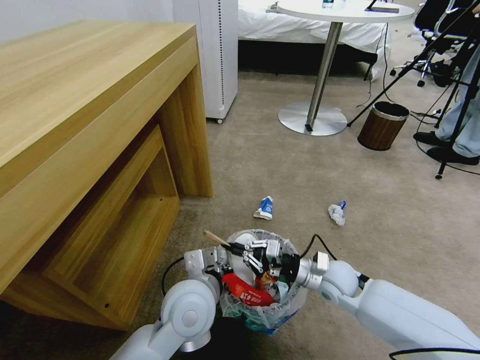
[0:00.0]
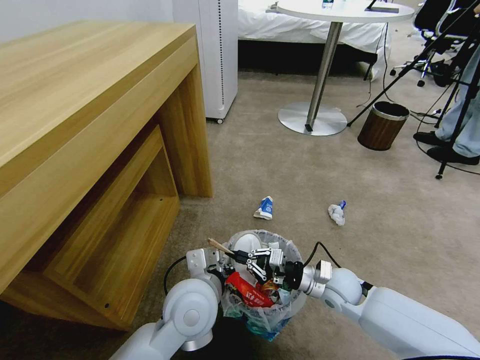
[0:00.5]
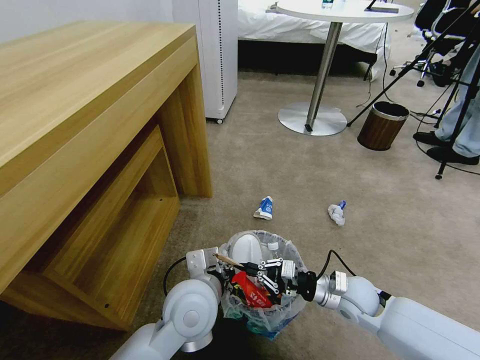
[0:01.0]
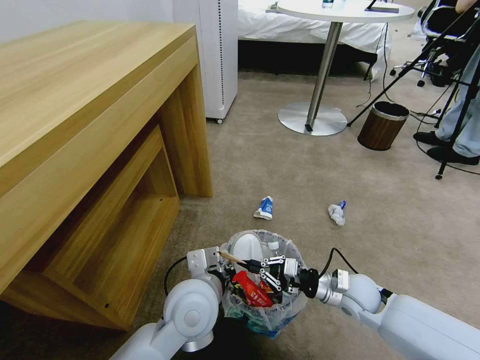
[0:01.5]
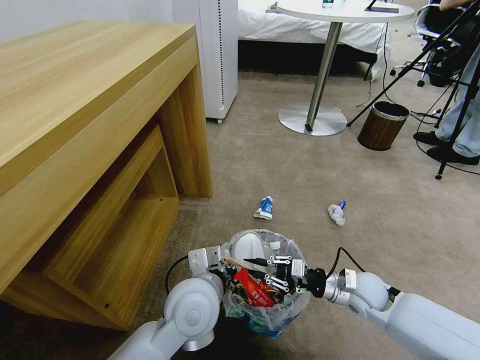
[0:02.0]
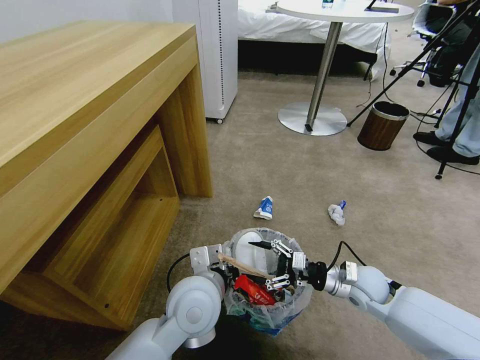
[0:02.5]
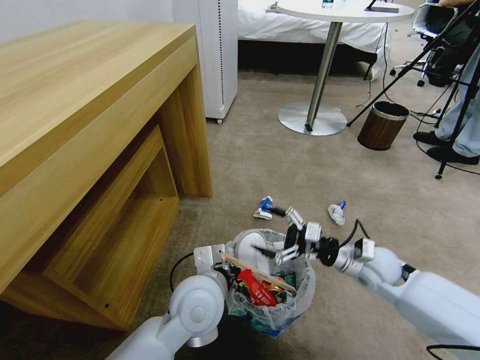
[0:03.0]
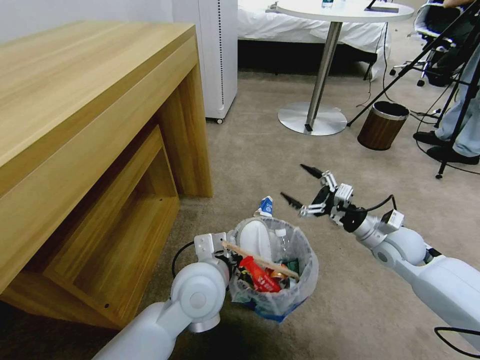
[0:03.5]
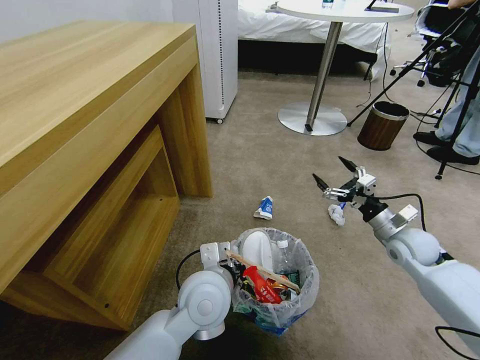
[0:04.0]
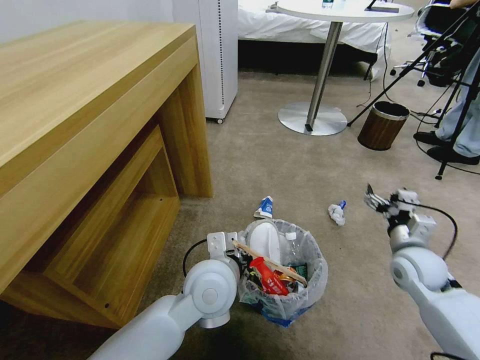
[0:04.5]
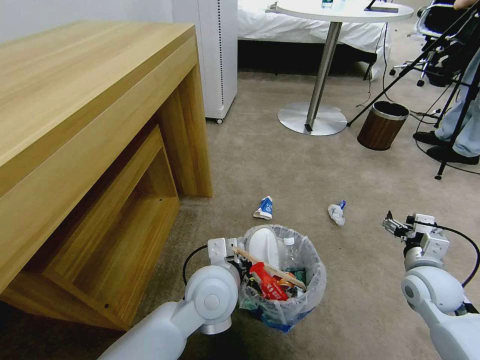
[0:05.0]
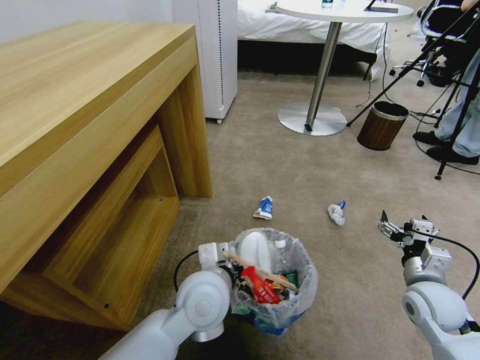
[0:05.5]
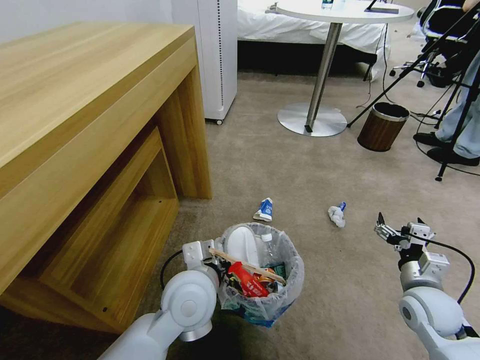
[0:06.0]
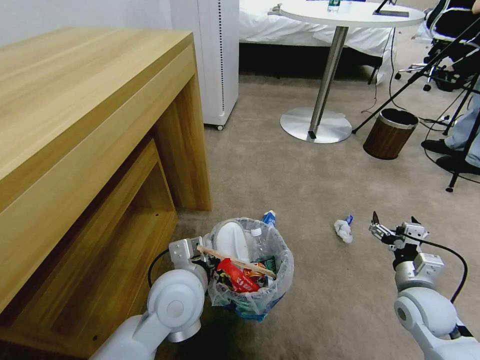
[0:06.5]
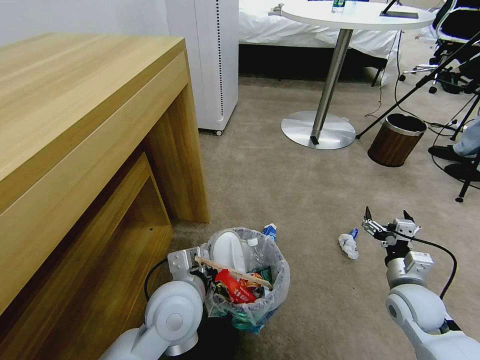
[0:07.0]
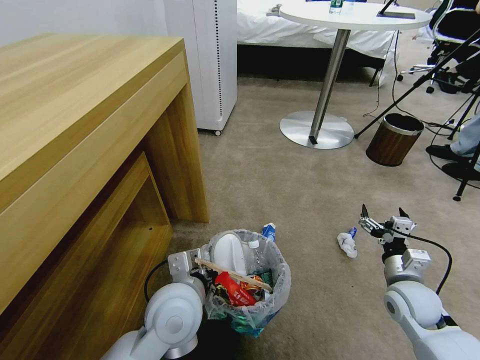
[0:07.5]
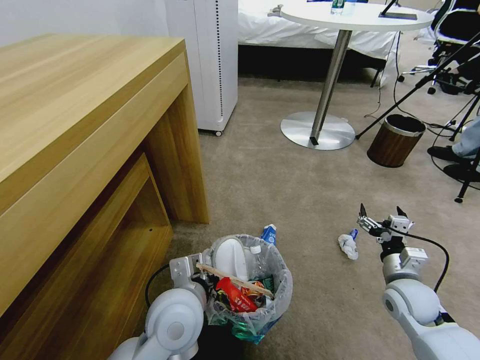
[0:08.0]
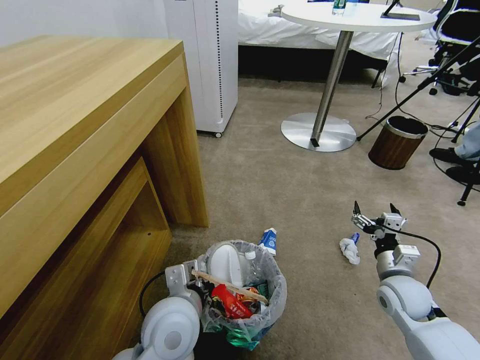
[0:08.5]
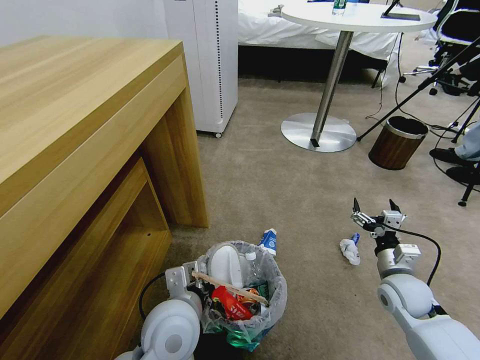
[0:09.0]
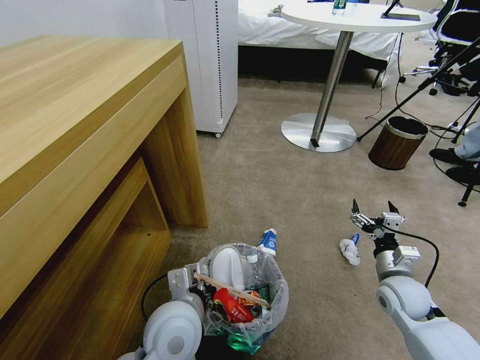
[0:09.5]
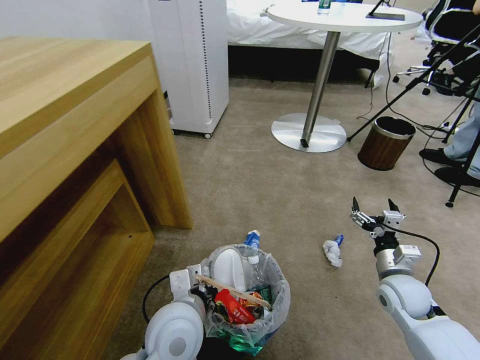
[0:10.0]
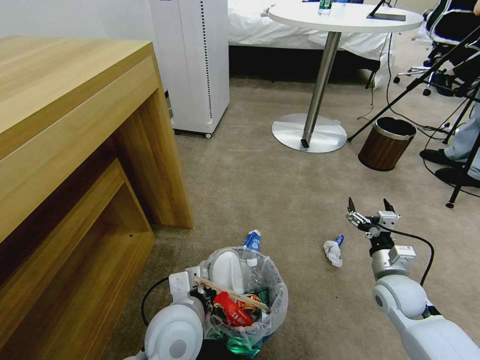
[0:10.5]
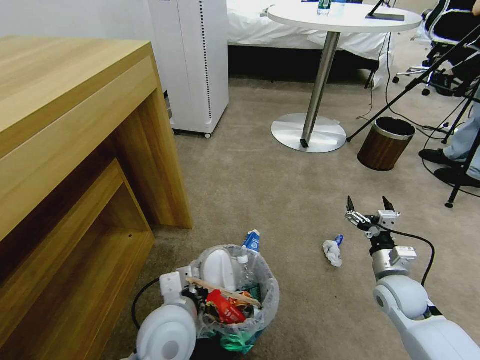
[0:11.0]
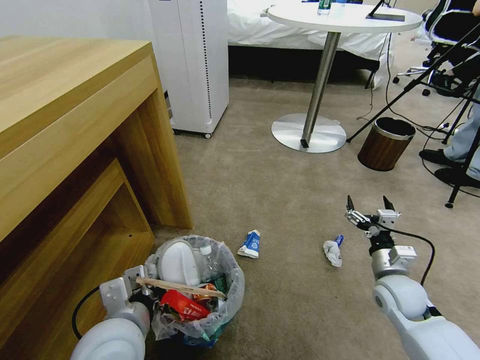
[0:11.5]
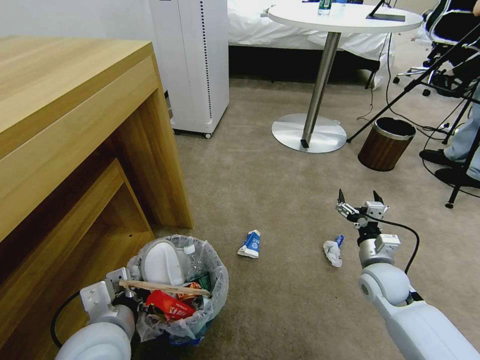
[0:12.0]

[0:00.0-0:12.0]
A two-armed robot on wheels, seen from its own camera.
Task of the whole recording: Pick up the trash bin and place the garbage on the floor into it.
0:00.0 to 0:02.0: The right gripper shifts approximately 5 cm to the right.
0:02.0 to 0:04.0: The right gripper heads to the right, upward and forward, covering approximately 15 cm, and opens up.
0:04.0 to 0:06.0: The right gripper heads backward, covering some 10 cm.
0:10.0 to 0:12.0: The left gripper shifts approximately 10 cm to the left.

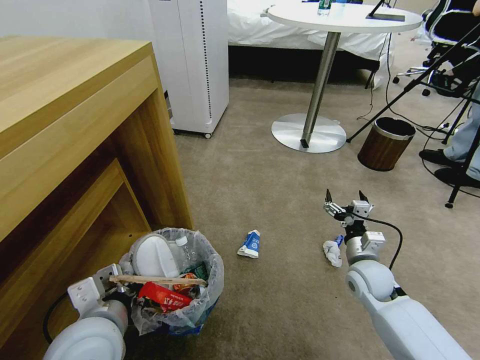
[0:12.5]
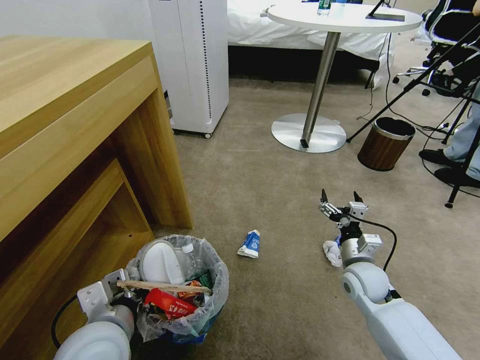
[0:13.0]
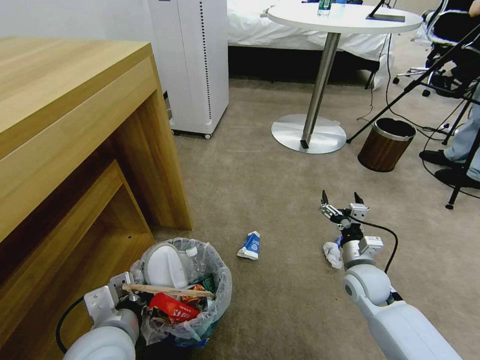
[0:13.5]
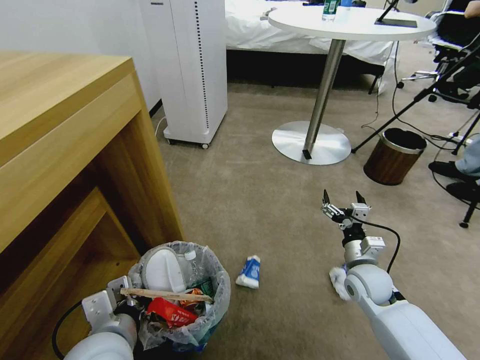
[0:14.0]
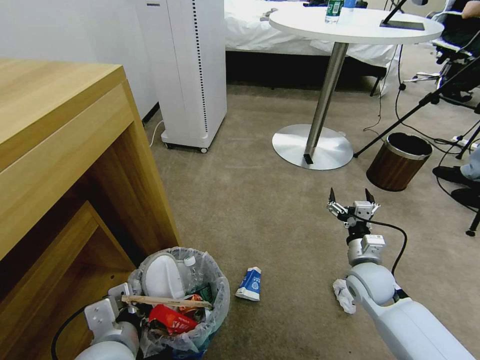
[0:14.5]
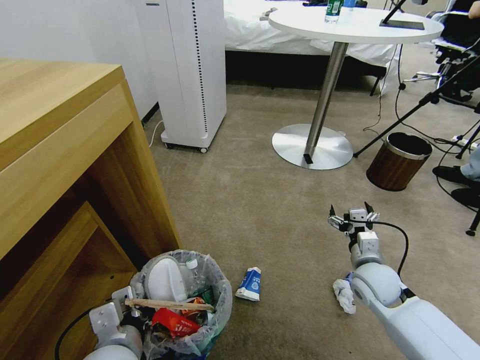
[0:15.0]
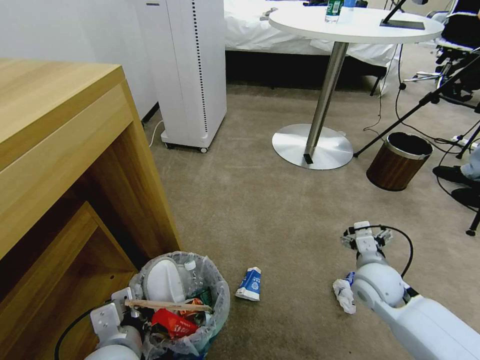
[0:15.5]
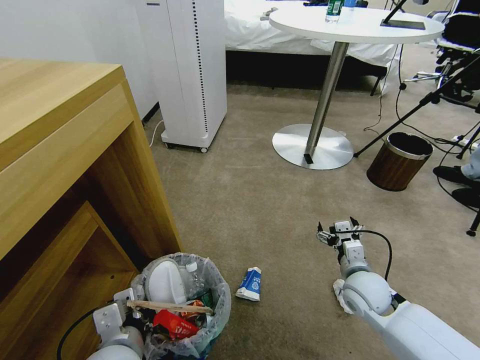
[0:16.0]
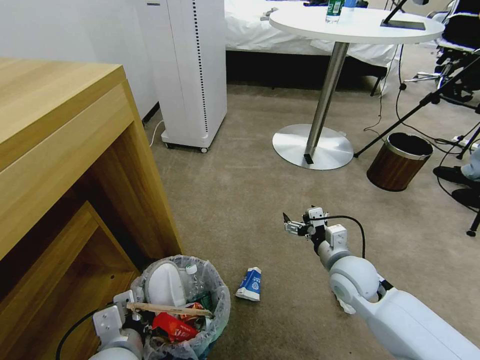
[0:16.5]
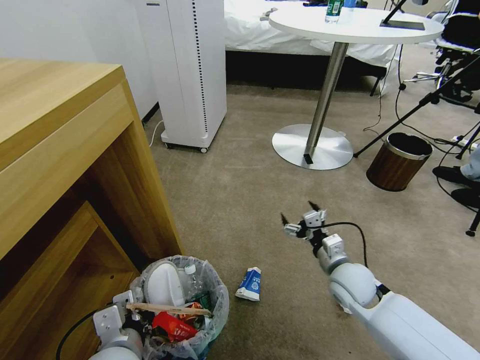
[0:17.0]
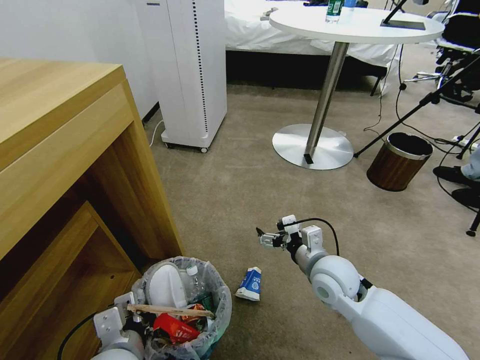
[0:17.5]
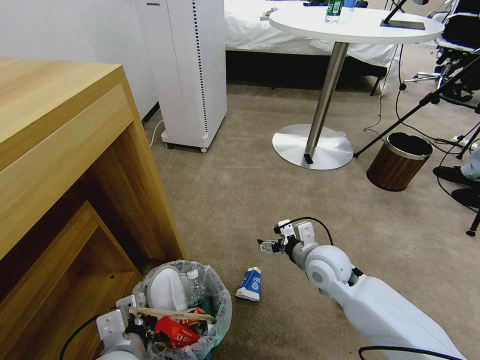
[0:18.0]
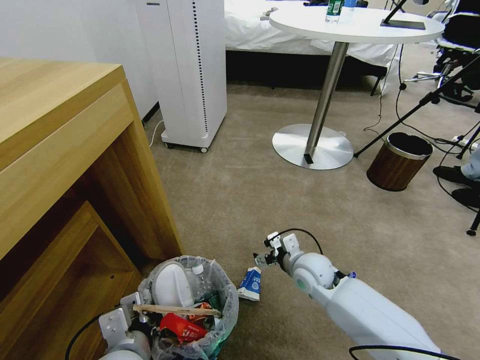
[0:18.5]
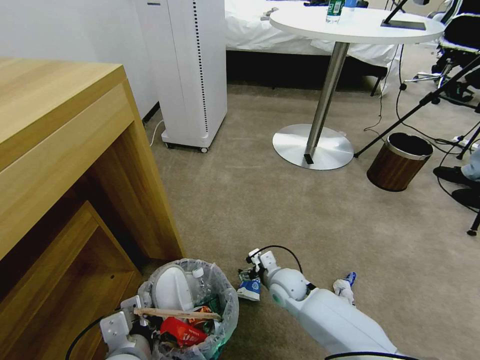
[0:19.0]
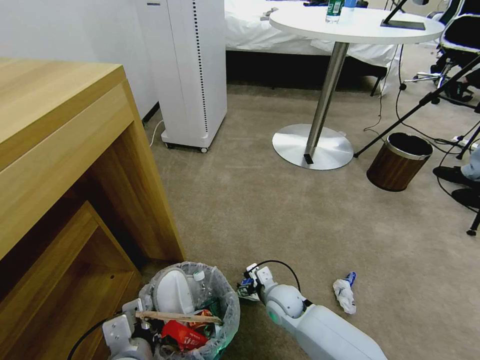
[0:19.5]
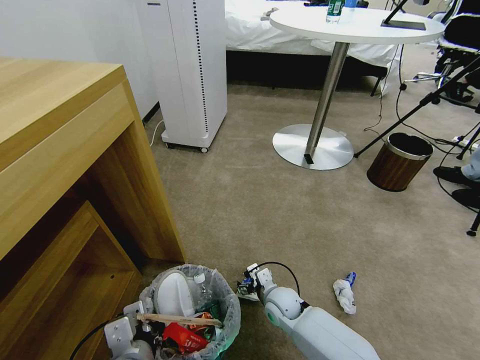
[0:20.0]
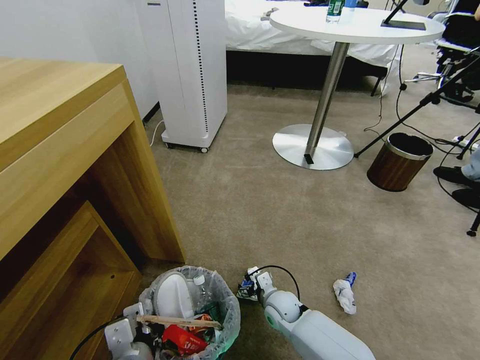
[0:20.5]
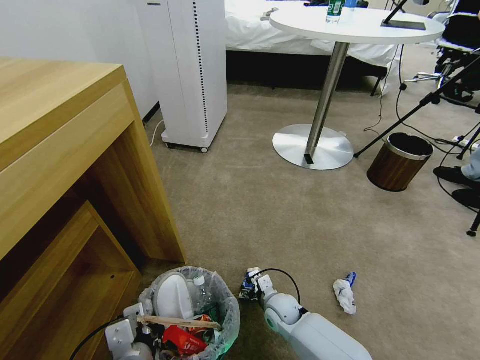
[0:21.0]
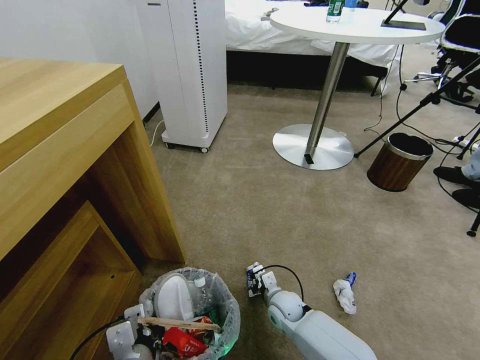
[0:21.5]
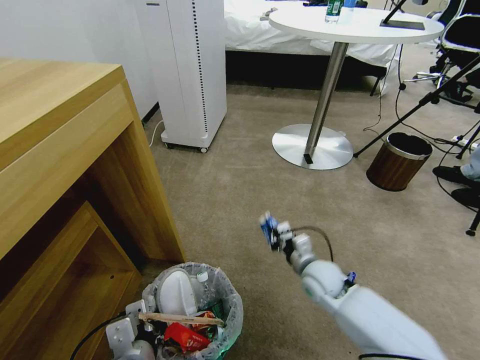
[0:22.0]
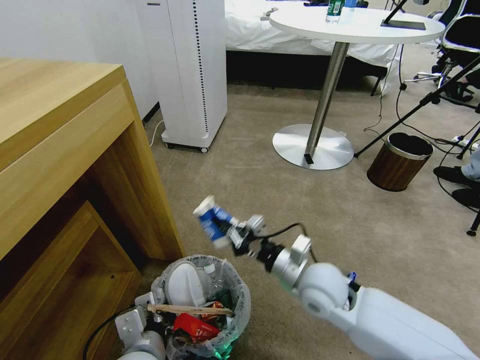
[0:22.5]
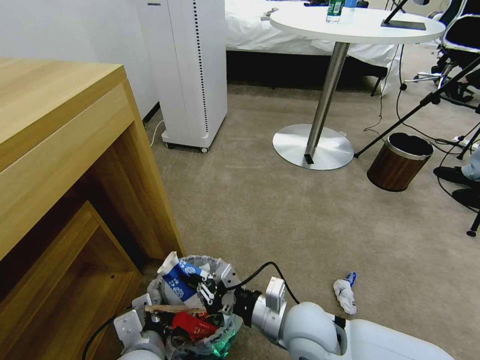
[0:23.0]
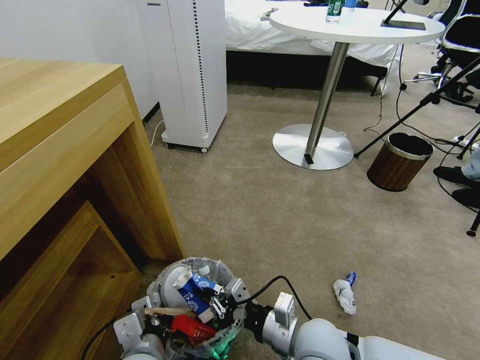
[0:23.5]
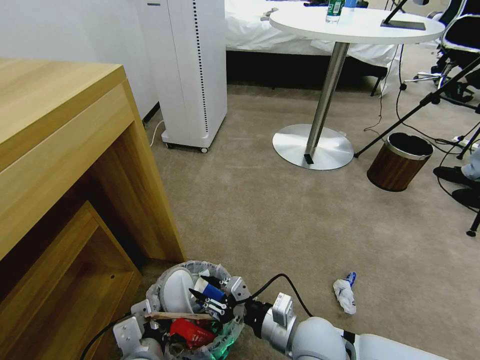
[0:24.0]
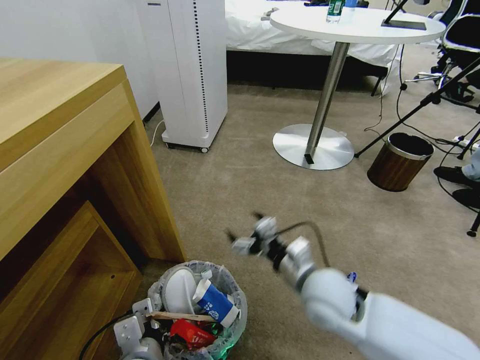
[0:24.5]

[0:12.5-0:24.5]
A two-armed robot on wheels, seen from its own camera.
Task of the whole recording: Pick up the trash bin and place the garbage on the floor into it.
0:14.5 to 0:16.5: The right gripper moves to the left, some 5 cm.
0:16.5 to 0:18.5: The right gripper travels to the left by about 5 cm.
0:18.5 to 0:20.5: The right gripper heads downward and to the left, covering approximately 15 cm.
0:20.5 to 0:22.5: The right gripper shifts about 20 cm upward, and closes up.
0:22.5 to 0:24.5: The right gripper reaches roughly 10 cm backward, then returns, and opens its fingers.

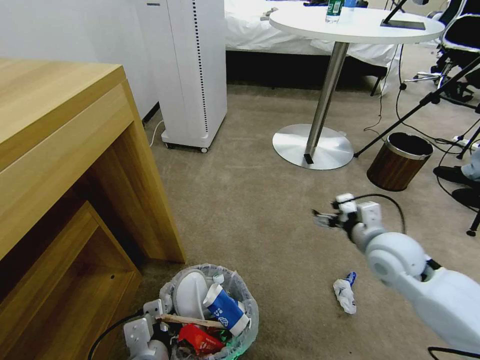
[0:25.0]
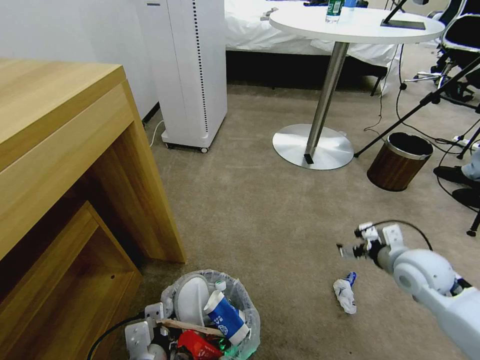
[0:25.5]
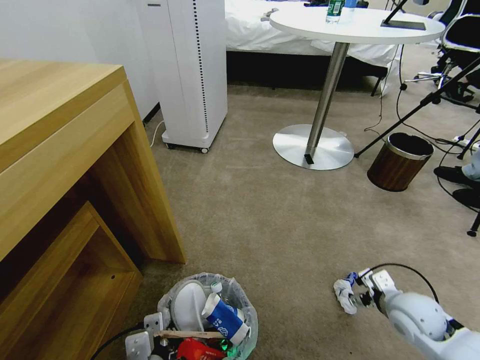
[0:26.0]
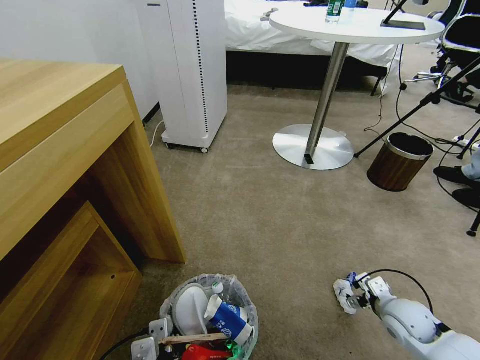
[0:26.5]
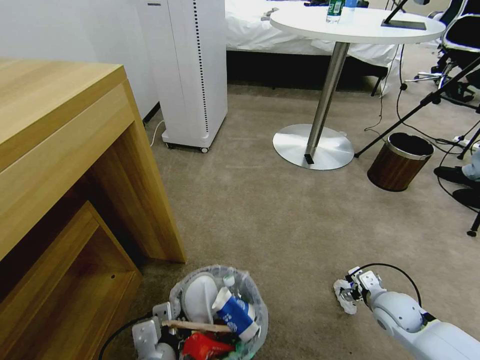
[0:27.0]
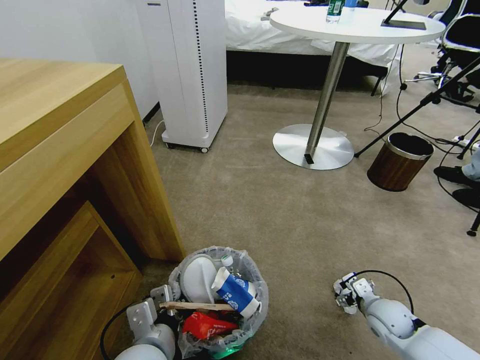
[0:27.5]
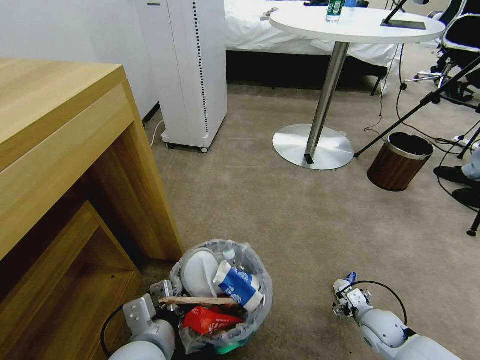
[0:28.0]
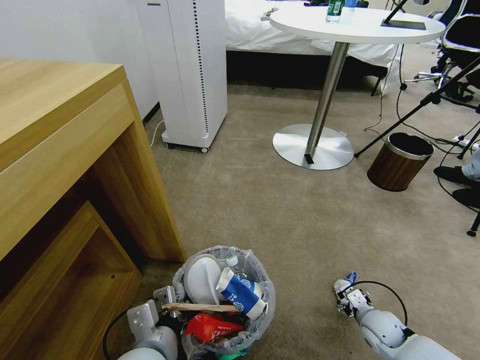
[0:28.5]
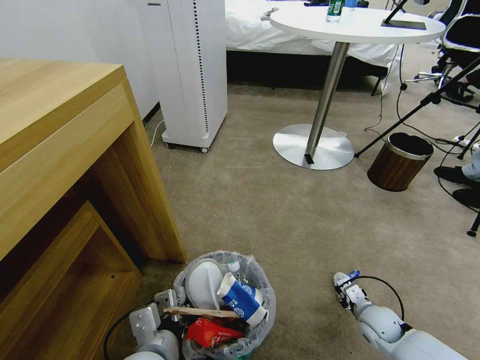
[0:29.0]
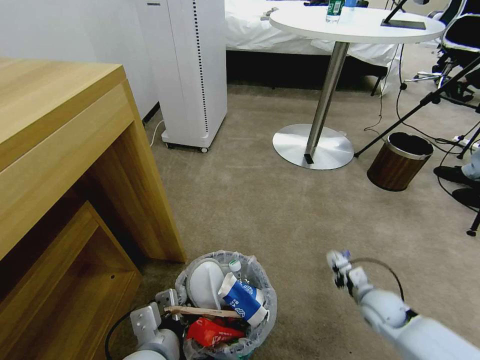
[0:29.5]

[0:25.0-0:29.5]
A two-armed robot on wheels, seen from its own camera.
Task of the whole recording: Pick up the trash bin and place the garbage on the floor into it.
0:25.0 to 0:27.0: The right gripper heads downward and to the right, covering about 20 cm.
0:27.0 to 0:29.5: The right gripper closes.
